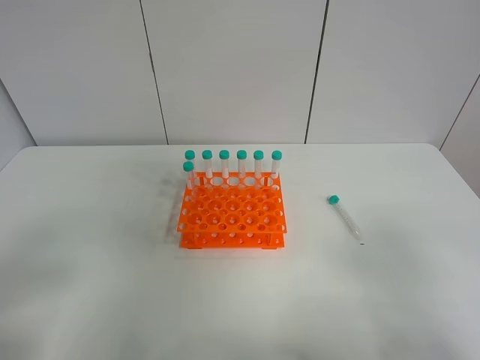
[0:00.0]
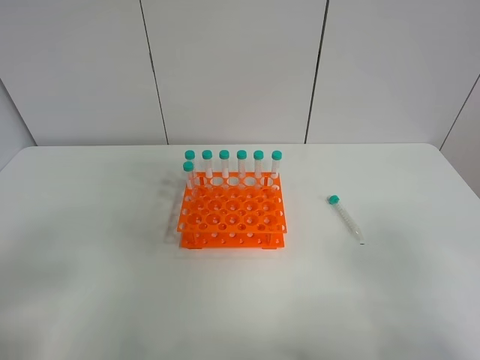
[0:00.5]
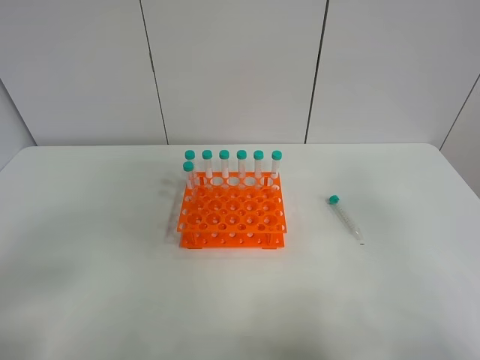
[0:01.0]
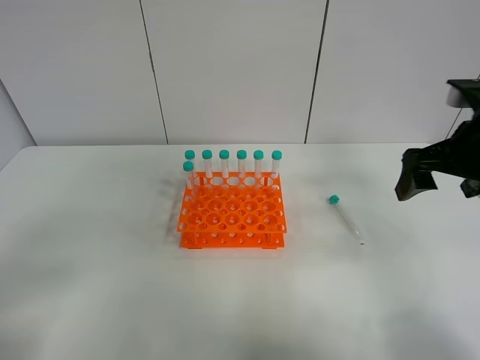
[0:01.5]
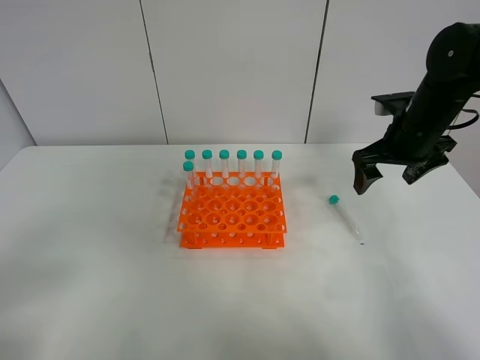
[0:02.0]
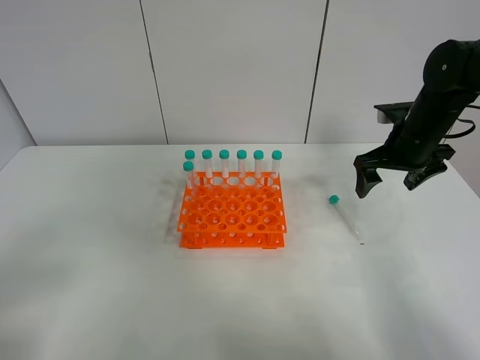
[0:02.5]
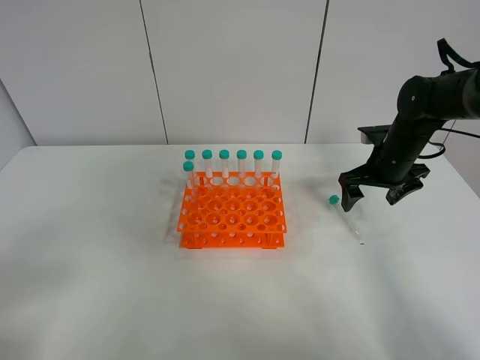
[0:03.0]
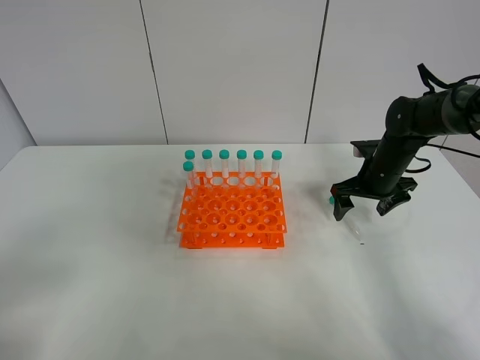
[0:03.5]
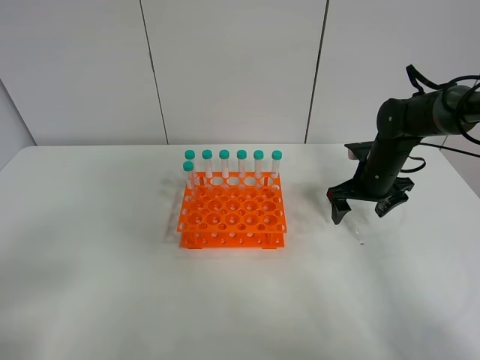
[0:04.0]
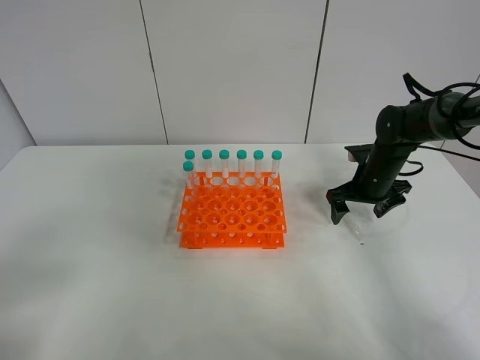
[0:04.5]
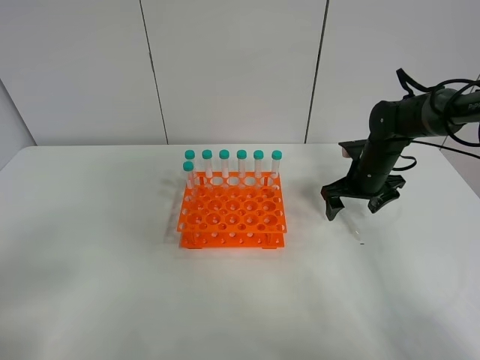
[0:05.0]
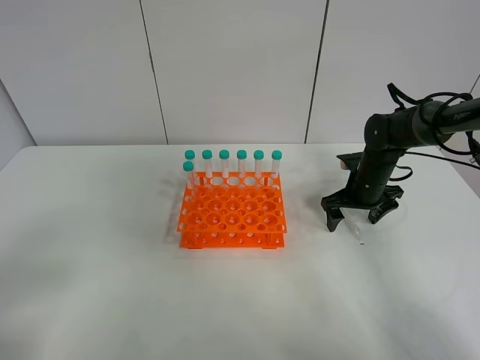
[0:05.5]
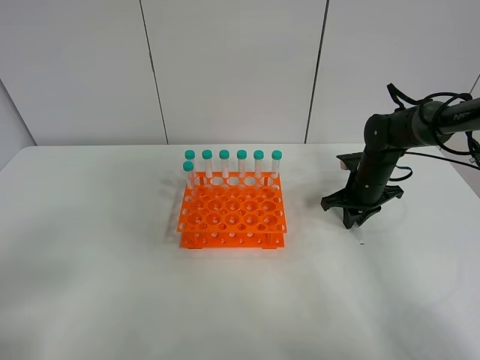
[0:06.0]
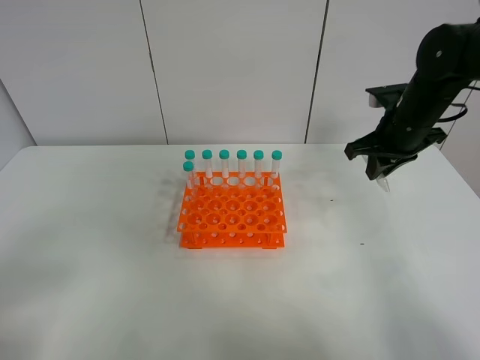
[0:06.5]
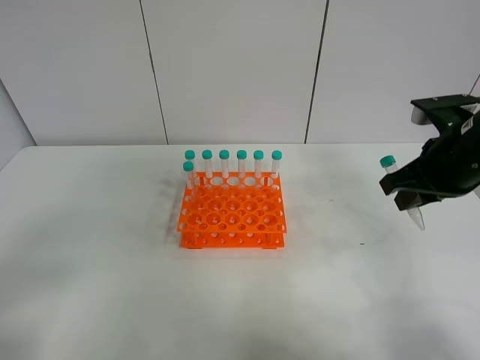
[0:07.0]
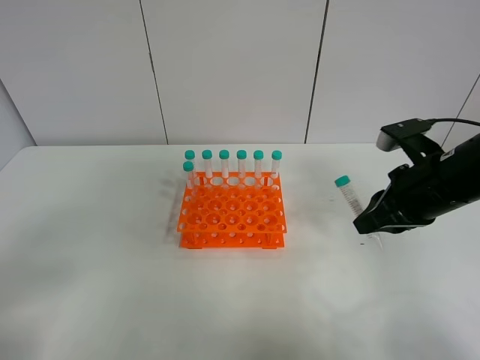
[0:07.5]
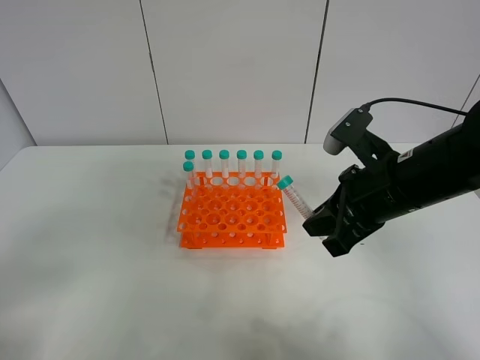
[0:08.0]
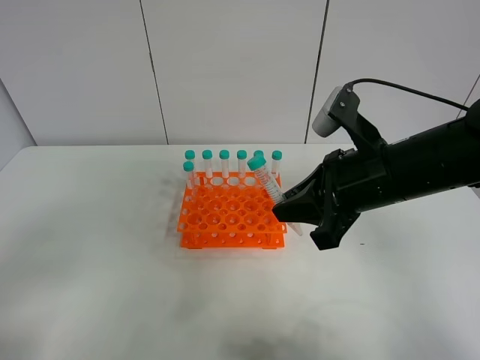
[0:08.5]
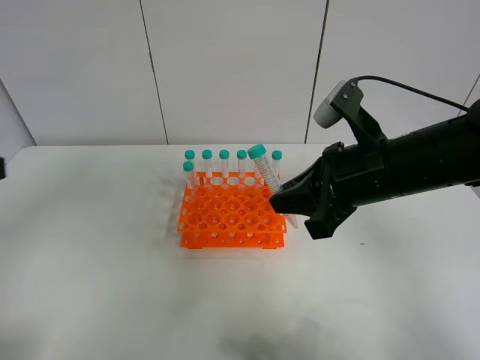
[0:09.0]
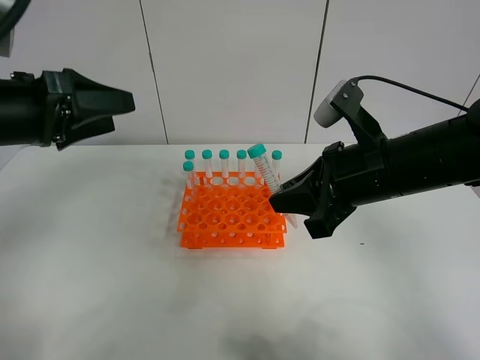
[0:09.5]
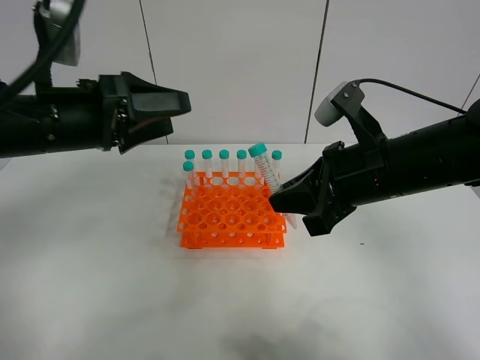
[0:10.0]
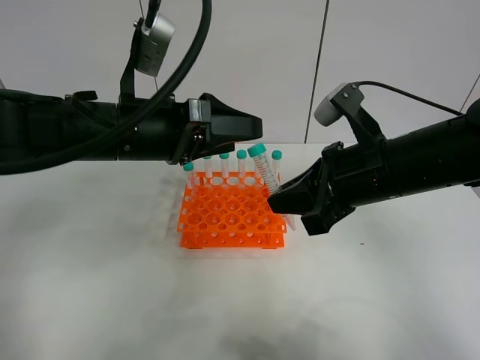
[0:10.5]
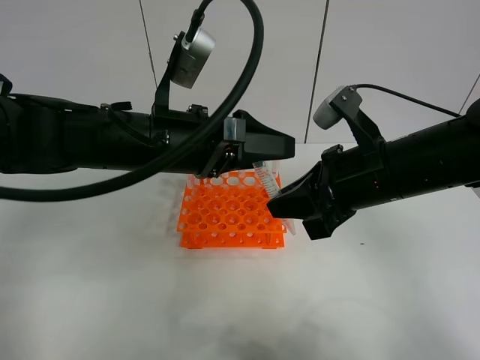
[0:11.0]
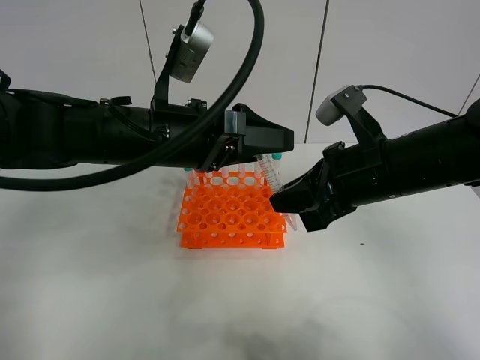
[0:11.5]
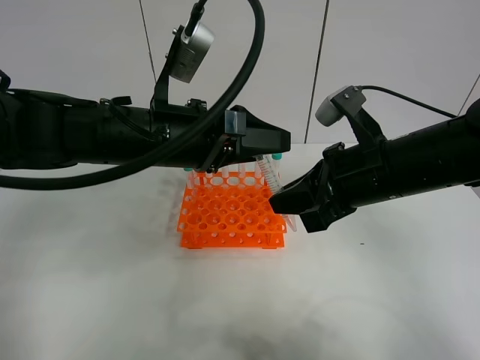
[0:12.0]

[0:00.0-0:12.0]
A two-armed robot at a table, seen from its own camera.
Task of the whole recording: Put the test tube on the table back onto the test tube rack.
Step, 0.0 to 6.0 s: Pick up the test tube with the right gripper.
0.0 to 2.0 s: The right gripper moves forward, approximately 35 cm.
2.0 to 4.0 s: The right gripper goes roughly 10 cm downward.
4.0 to 6.0 s: The right gripper closes.
6.0 to 8.0 s: The right gripper travels backward and upward by approximately 25 cm.
8.0 to 10.0 s: The left gripper is displaced forward and to the right by roughly 30 cm.
10.0 to 12.0 s: The left gripper is displaced to the right by about 10 cm.

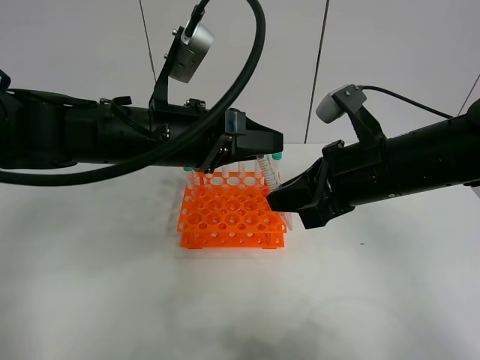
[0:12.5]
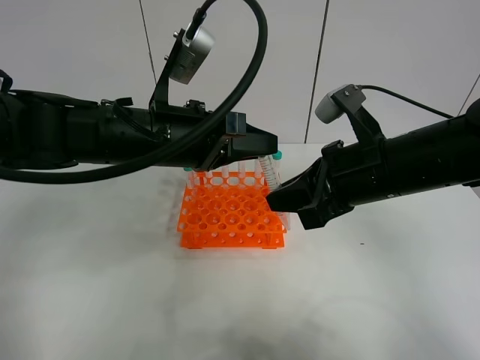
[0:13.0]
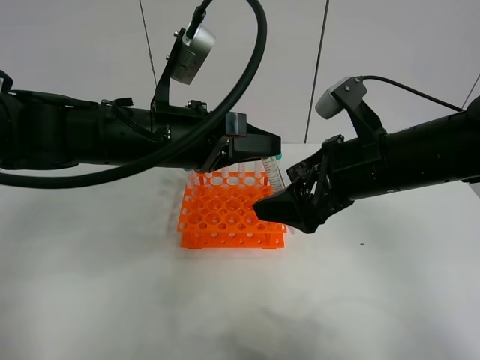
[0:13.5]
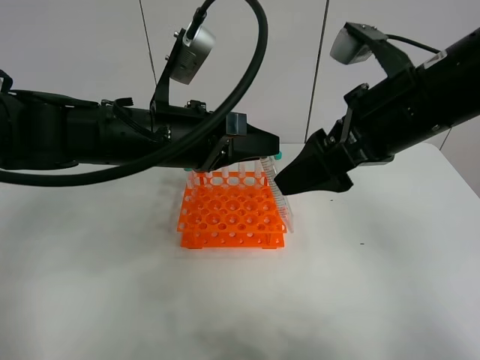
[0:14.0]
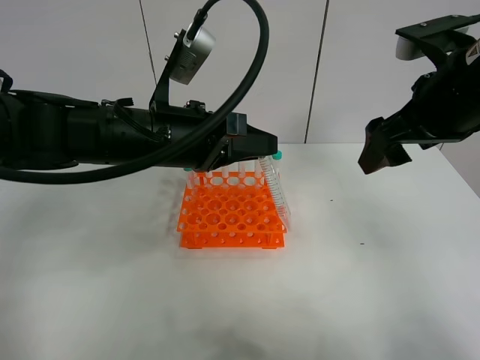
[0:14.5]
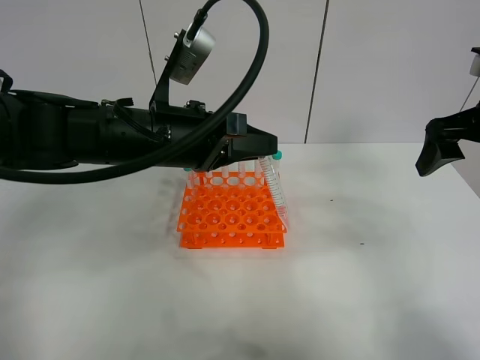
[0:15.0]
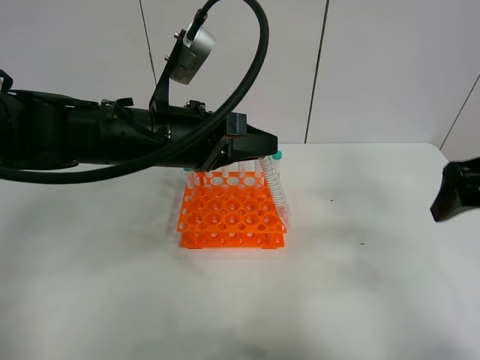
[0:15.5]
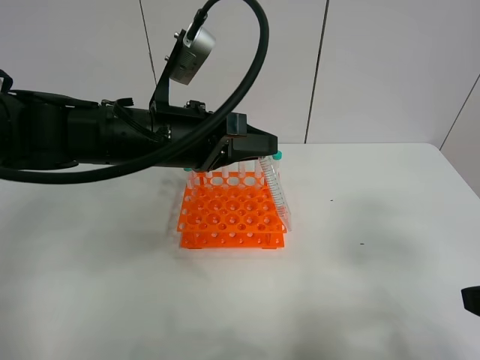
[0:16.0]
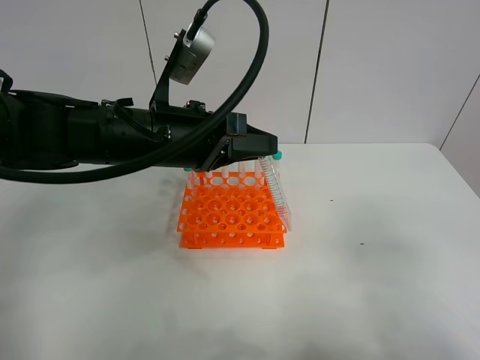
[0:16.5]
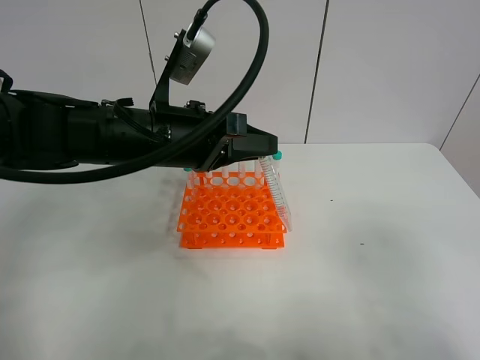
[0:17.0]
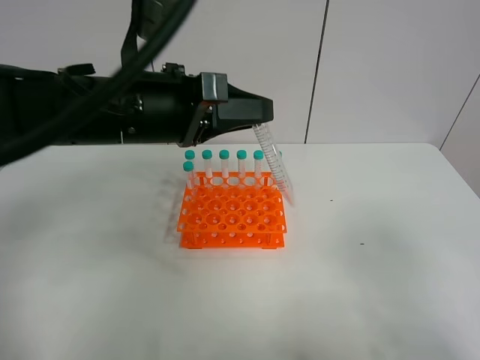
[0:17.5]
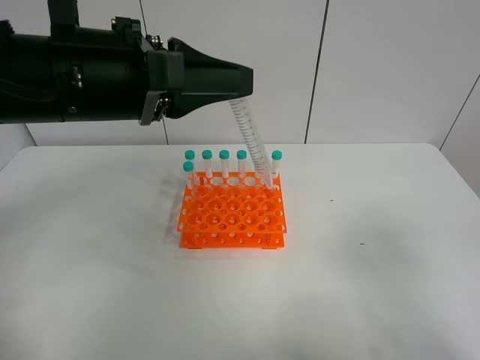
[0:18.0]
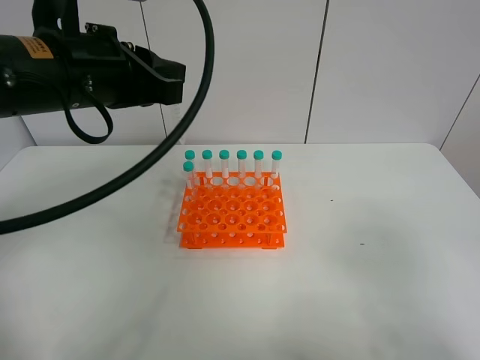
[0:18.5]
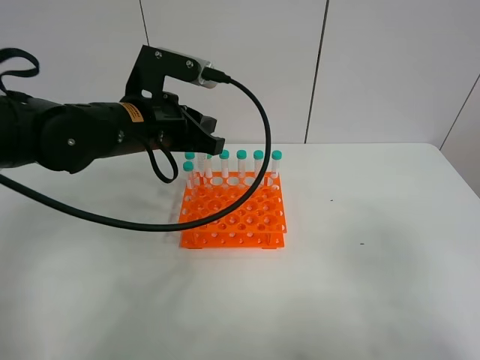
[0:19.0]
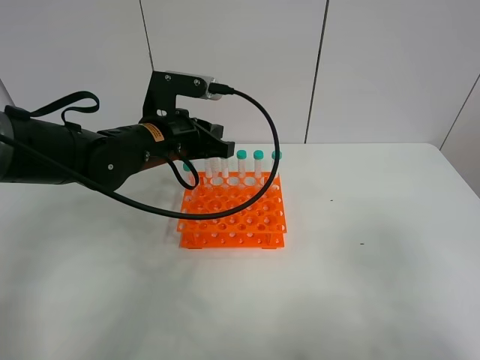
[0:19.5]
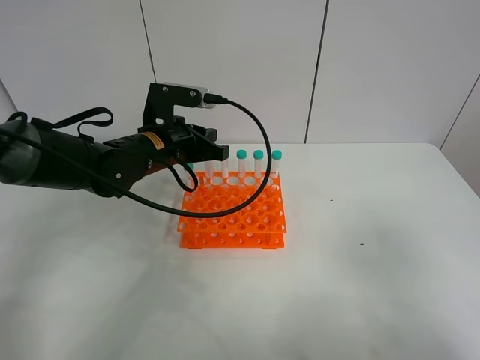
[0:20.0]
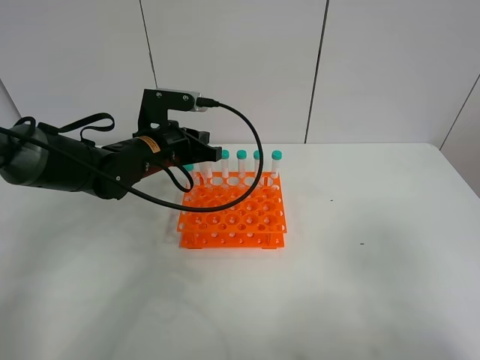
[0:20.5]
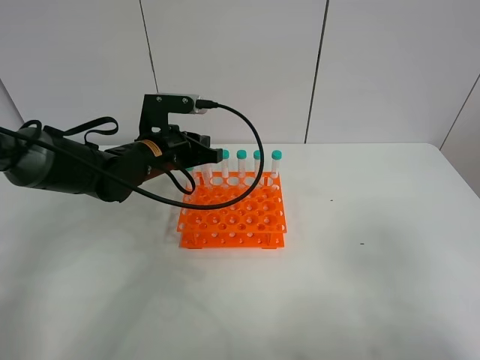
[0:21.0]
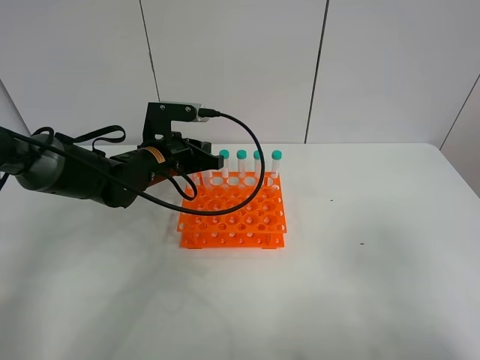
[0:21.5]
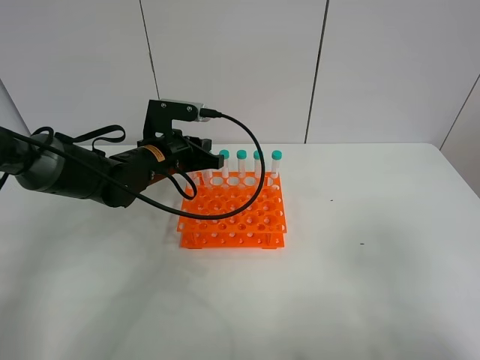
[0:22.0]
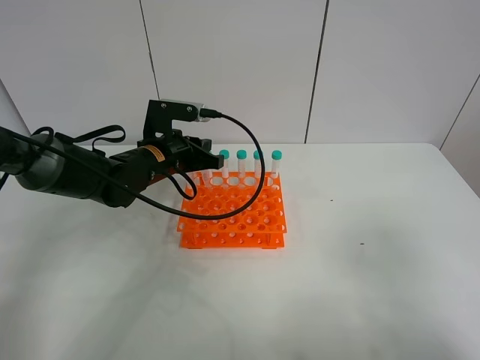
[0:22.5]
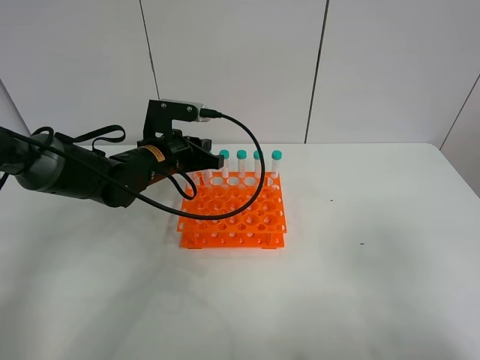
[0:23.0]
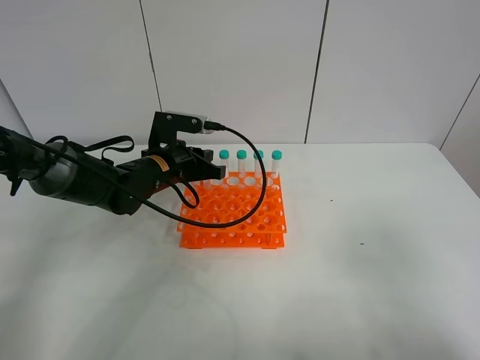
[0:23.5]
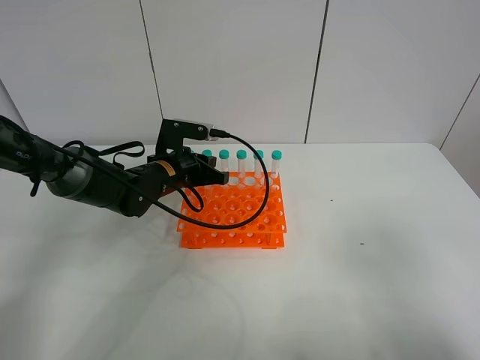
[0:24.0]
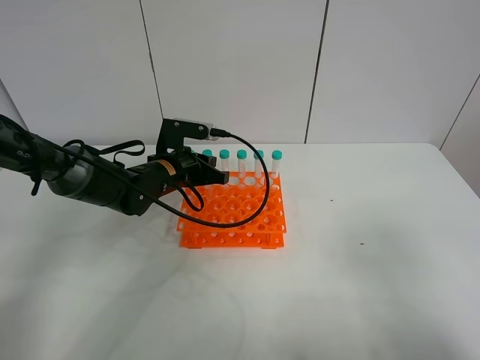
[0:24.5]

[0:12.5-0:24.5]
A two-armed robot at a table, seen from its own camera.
Task of the whole recording: Put the test tube on the table back onto the test tube rack.
12.5 to 14.5 s: The right gripper heads upward and to the right, covering about 10 cm, and opens up.
14.5 to 16.5 s: The right gripper travels backward by approximately 25 cm.
16.5 to 18.5 s: The left gripper is displaced upward and to the left by some 10 cm.
18.5 to 20.5 s: The left gripper travels downward and forward by some 20 cm.
20.5 to 24.5 s: There are only small adjustments of the grippers.

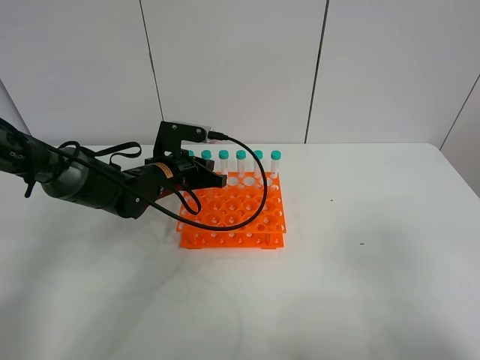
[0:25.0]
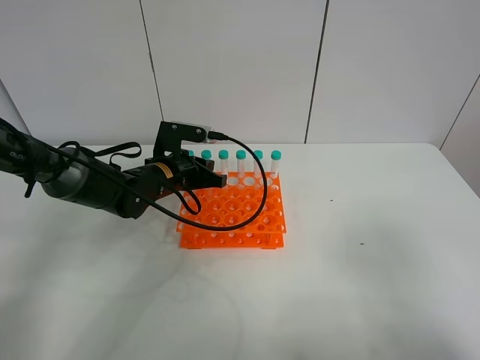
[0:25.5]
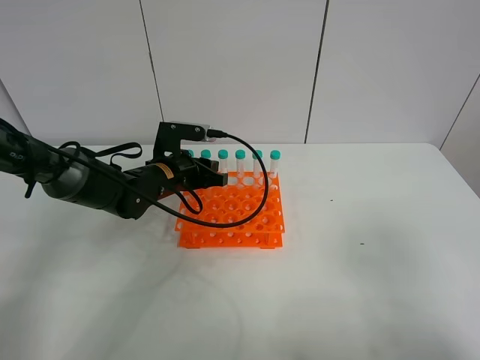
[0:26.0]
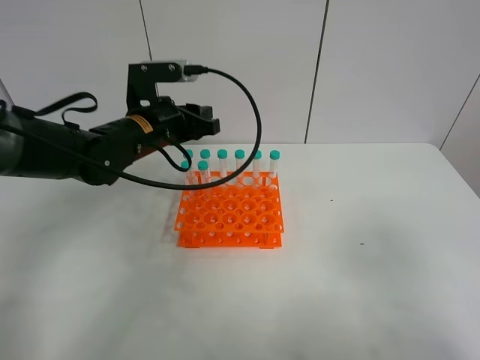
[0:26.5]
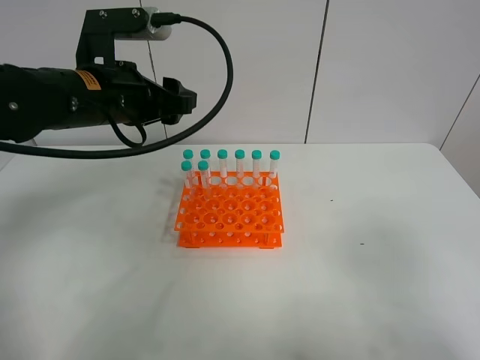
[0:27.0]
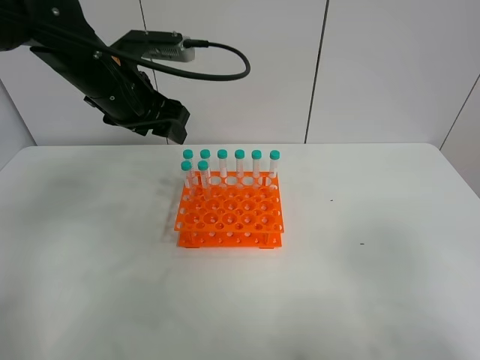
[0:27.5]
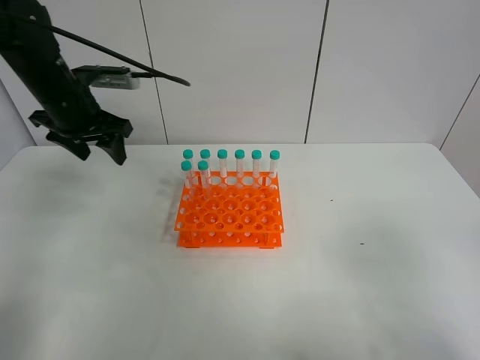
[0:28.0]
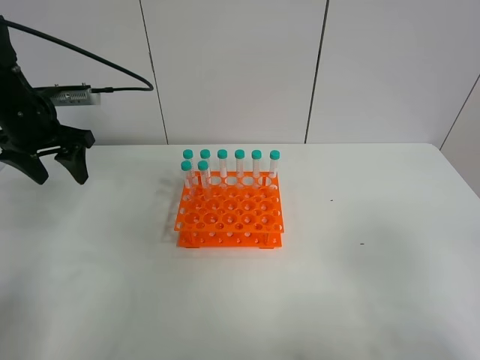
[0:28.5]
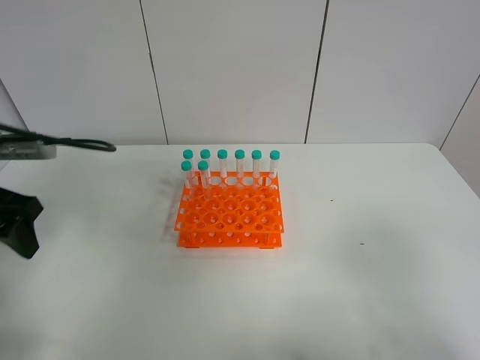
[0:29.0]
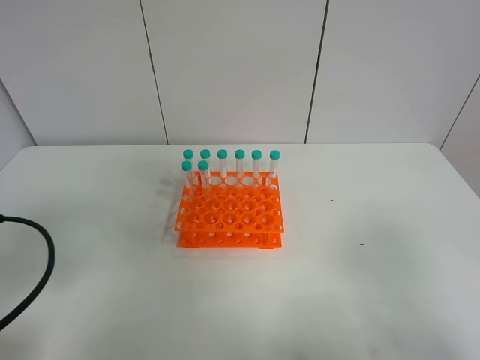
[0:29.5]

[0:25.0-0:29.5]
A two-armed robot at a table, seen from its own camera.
Task of the whole recording: Put the test tube on the table back onto the test tube rack.
25.0 to 27.0 s: The left gripper travels upward and backward by about 20 cm, and opens.
27.0 to 29.5 s: The left gripper is displaced backward and to the left by about 25 cm.
